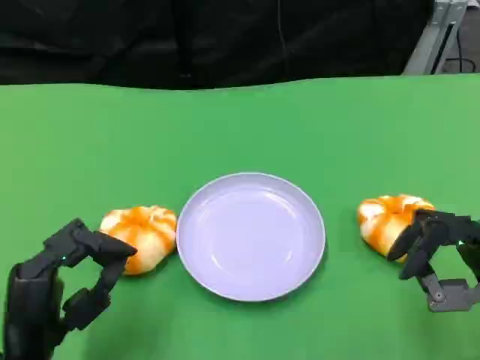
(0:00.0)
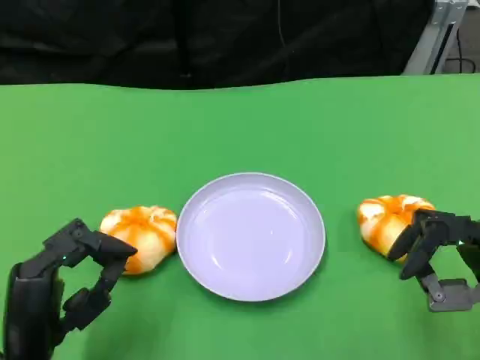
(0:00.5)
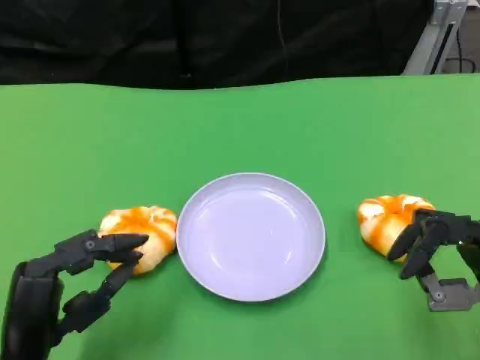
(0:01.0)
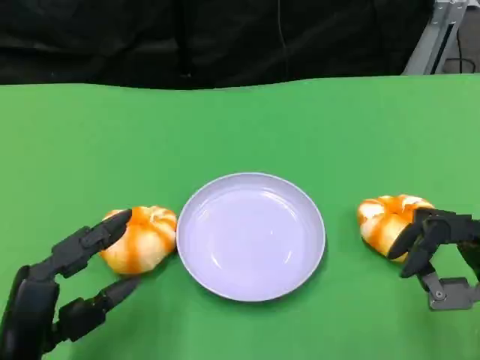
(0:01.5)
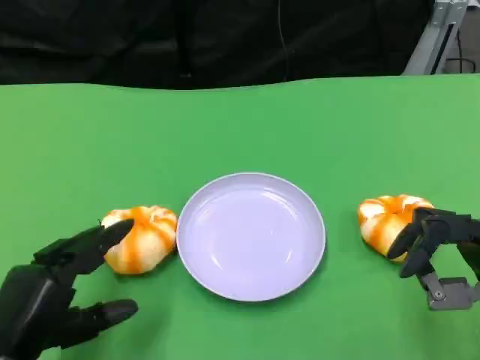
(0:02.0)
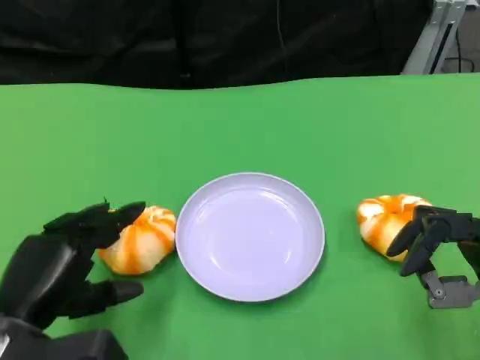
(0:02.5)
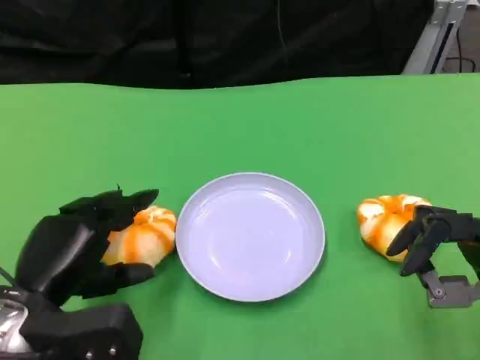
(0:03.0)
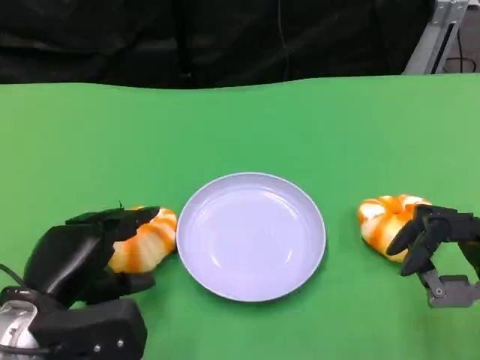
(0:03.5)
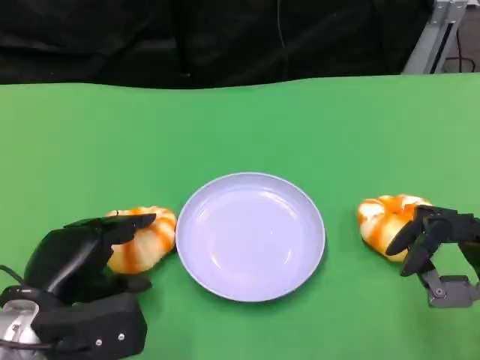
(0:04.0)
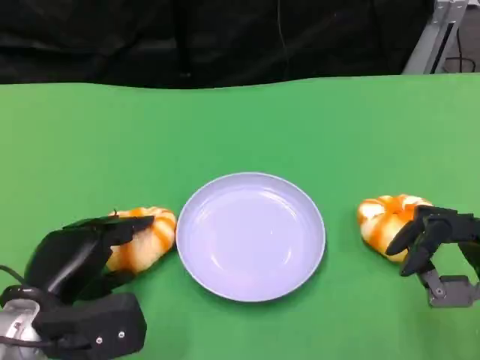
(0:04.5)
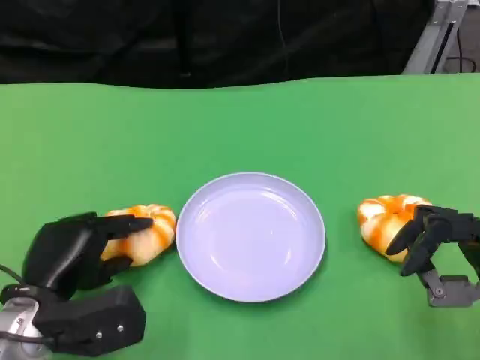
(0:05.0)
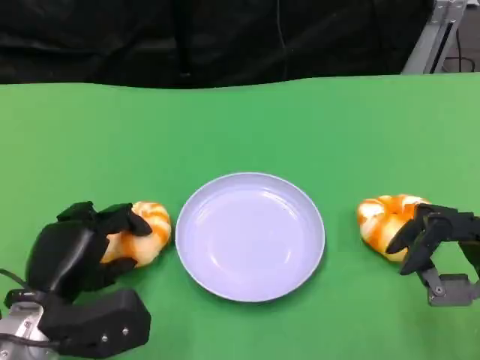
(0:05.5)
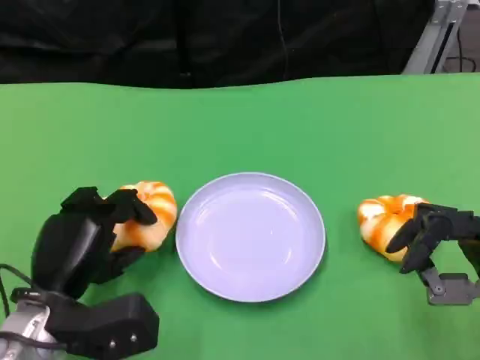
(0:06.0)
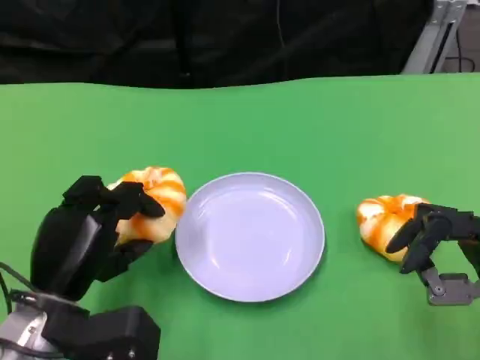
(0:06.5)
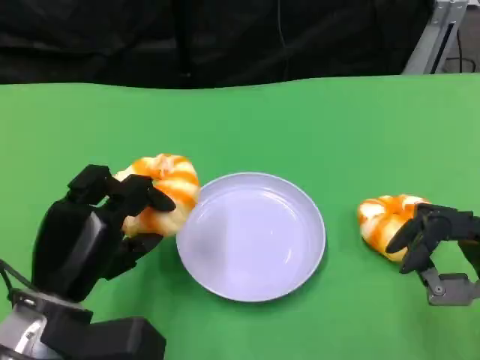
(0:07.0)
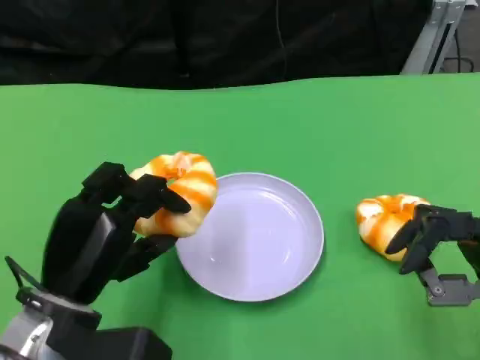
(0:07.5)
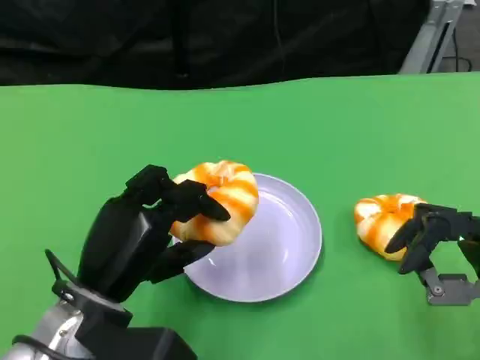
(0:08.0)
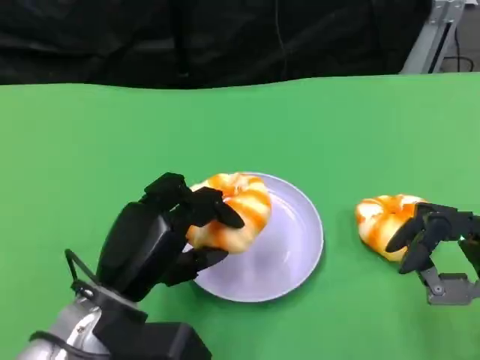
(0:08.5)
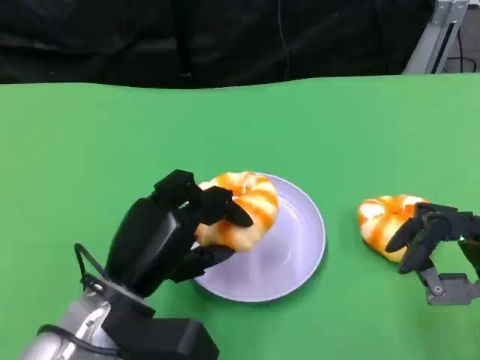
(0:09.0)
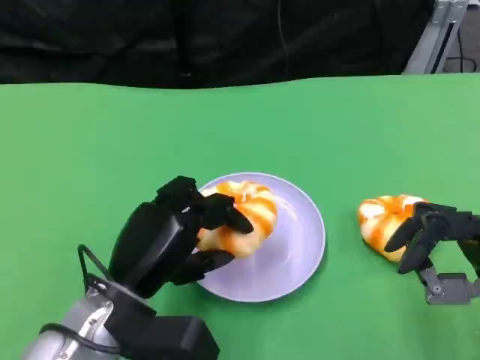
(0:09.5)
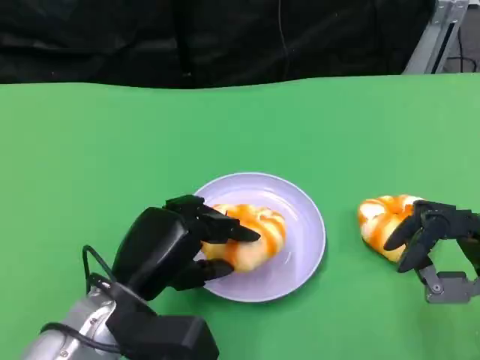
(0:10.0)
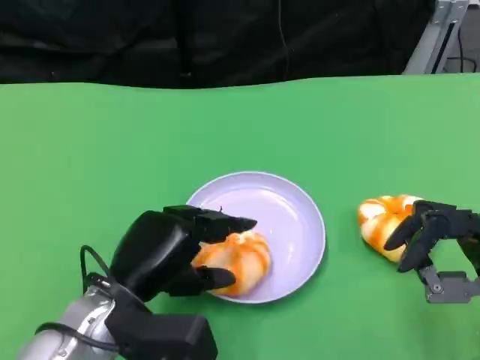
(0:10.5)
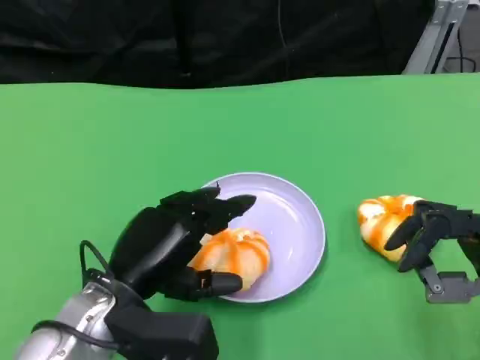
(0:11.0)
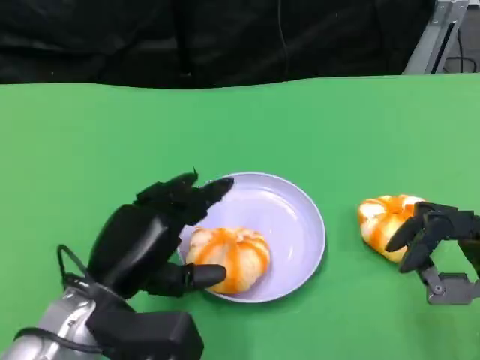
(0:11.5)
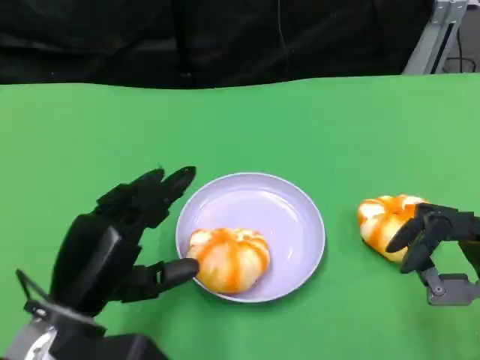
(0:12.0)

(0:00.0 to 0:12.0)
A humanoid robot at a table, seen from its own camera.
Task of the whole recording: Grasp the bread from the table and place it into the plate.
0:02.0 - 0:04.0: The left hand travels forward by approximately 5 cm.
0:04.0 - 0:06.0: There are only small adjustments of the hands.
0:06.0 - 0:08.0: The left hand moves about 5 cm.
0:08.0 - 0:10.0: The hands move only a little.
0:10.0 - 0:12.0: The left hand ends up approximately 5 cm from where it was.

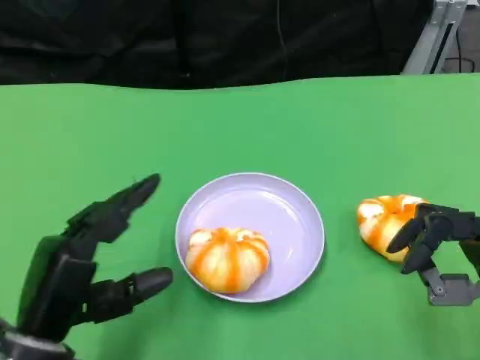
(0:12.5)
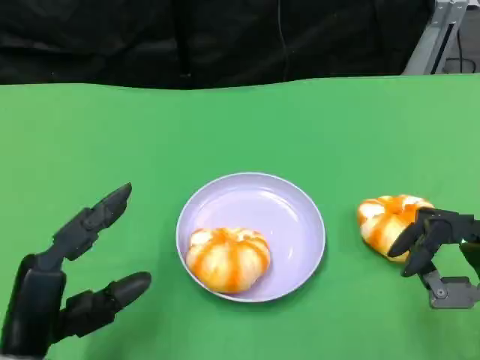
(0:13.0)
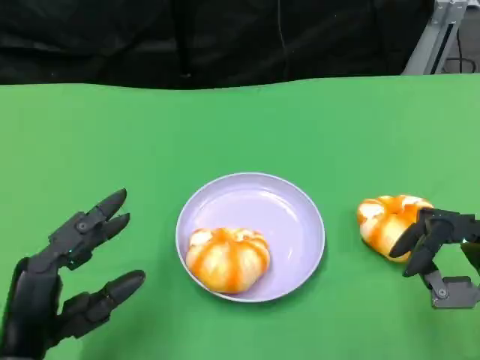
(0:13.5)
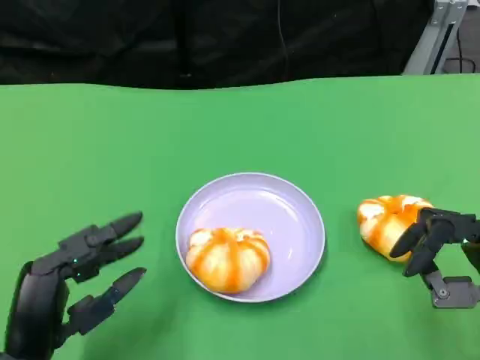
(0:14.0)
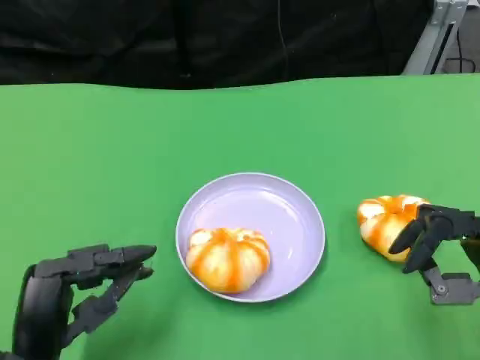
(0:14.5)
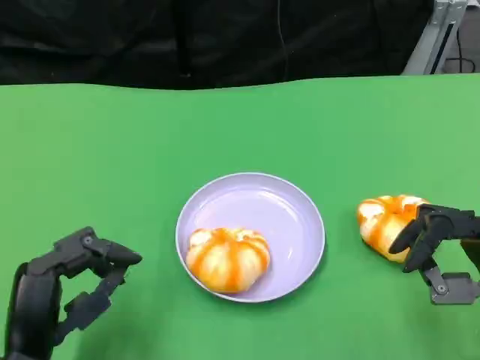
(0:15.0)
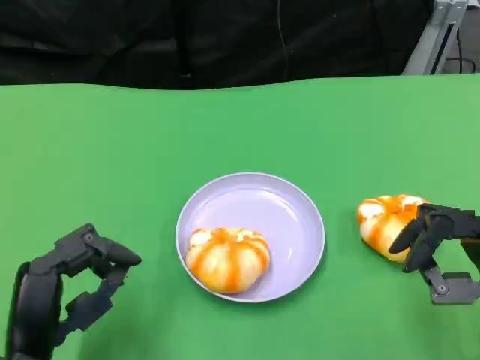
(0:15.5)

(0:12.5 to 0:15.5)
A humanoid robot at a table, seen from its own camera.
Task of the whole recording: Grasp the bread from the table and place it into the plate.
0:14.0 - 0:15.5: The hands make only small movements.

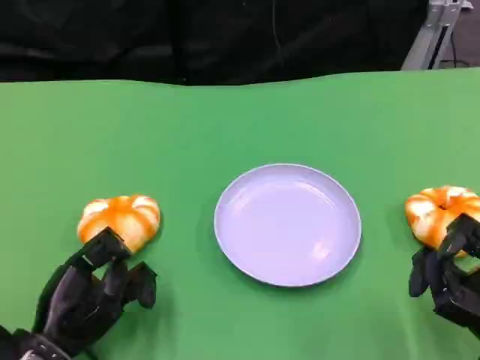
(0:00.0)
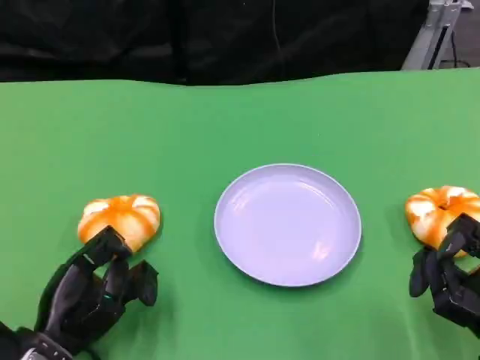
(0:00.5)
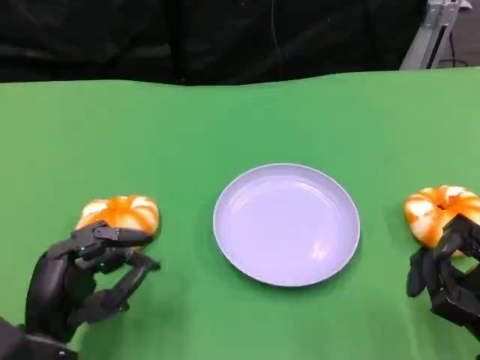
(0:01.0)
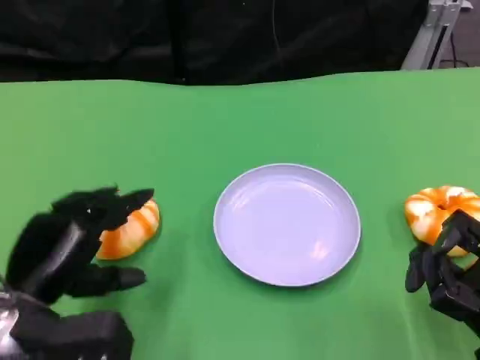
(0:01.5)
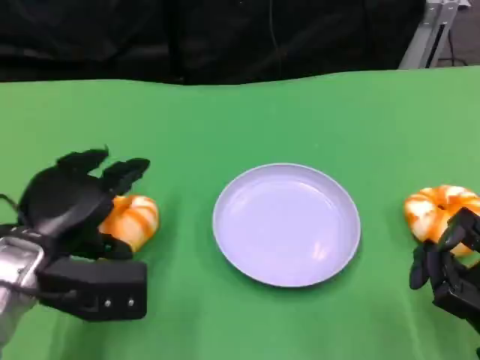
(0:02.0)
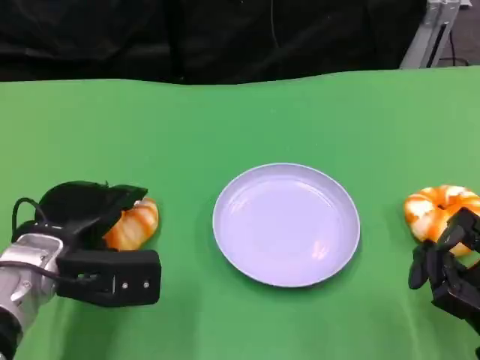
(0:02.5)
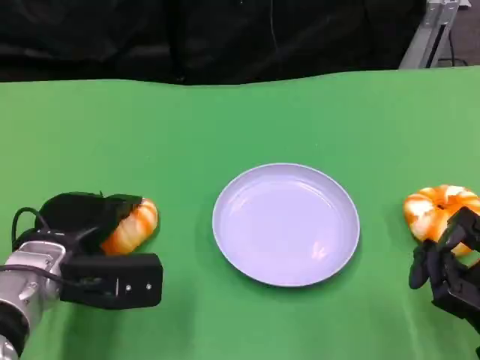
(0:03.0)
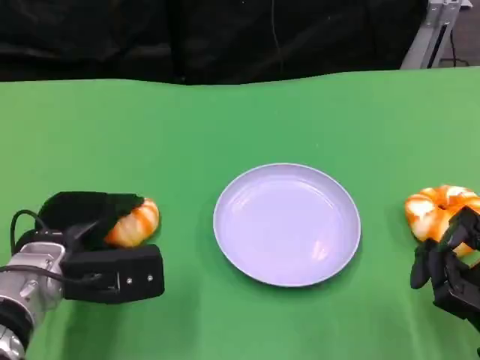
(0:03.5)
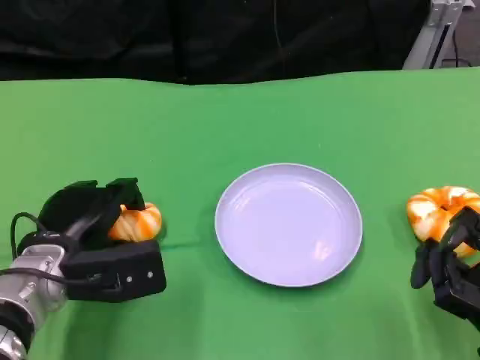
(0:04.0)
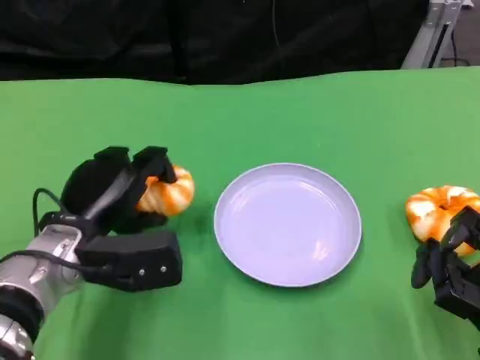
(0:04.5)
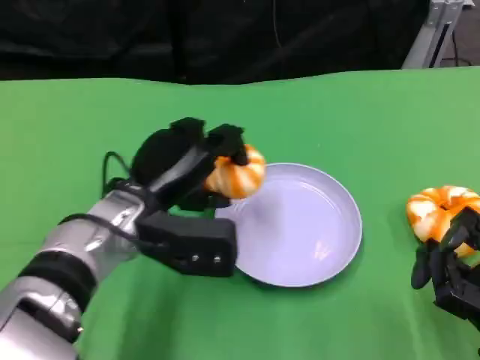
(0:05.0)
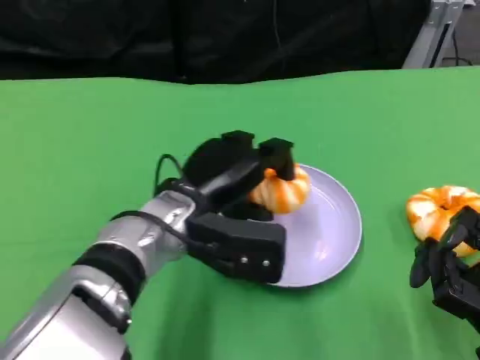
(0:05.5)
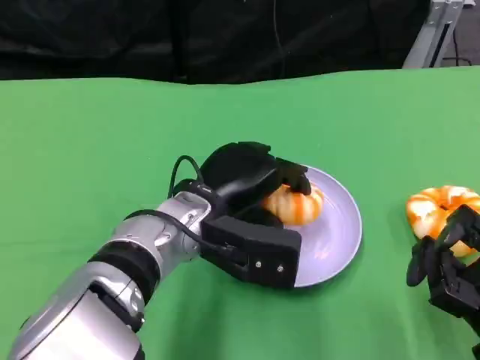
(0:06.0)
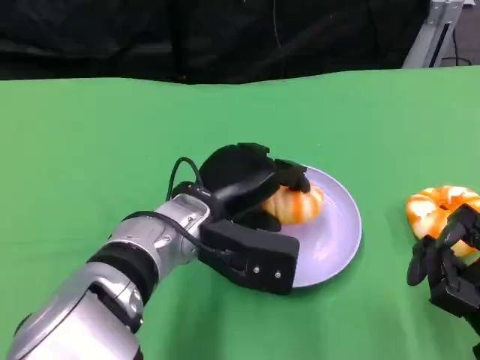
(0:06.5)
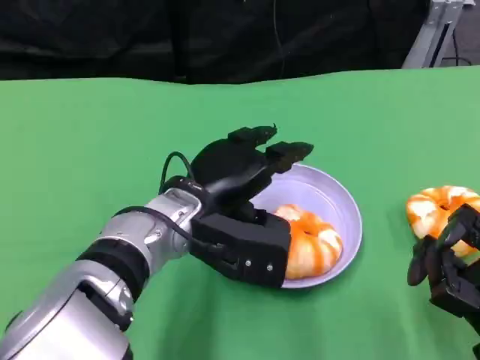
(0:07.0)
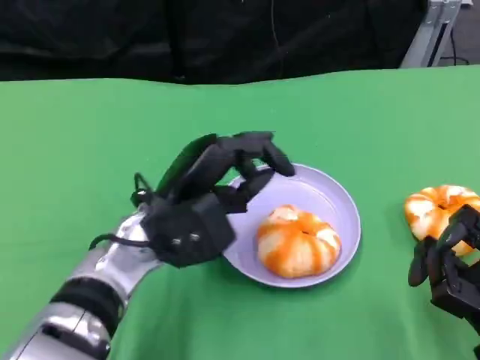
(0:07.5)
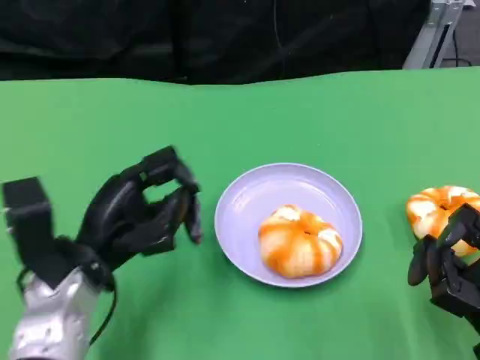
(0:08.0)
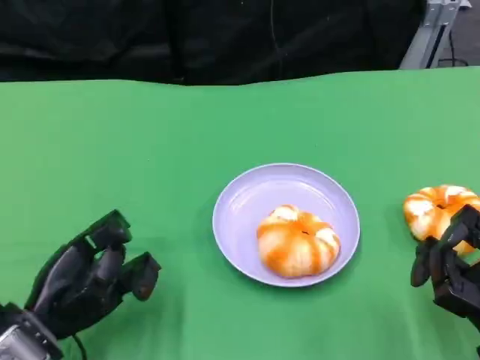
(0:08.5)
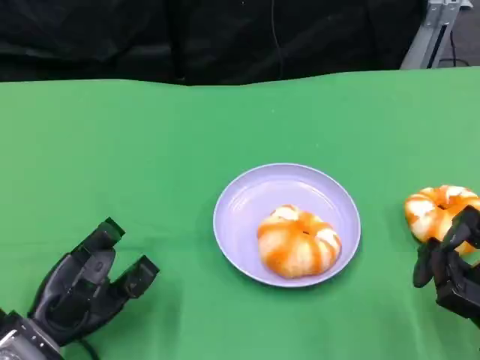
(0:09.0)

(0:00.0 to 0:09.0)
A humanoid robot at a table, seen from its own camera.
Task of the whole recording: Grasp the bread from the table and place it into the plate.
0:00.0 - 0:02.0: The left hand heads upward and forward, covering roughly 10 cm.
0:02.0 - 0:04.5: The hands make only small movements.
0:04.5 - 0:07.0: The left hand is displaced to the right by about 10 cm.
0:07.0 - 0:09.0: The left hand moves to the left, downward and backward, about 20 cm.

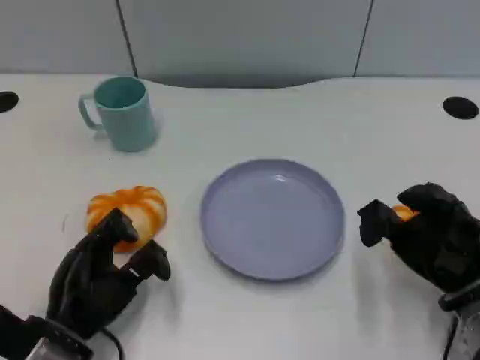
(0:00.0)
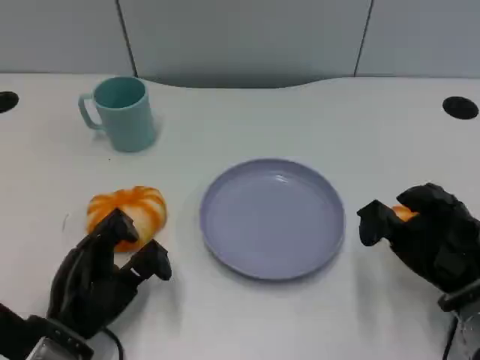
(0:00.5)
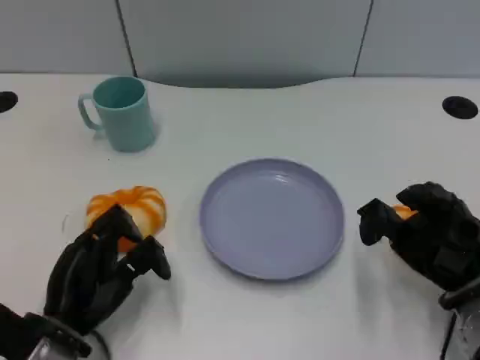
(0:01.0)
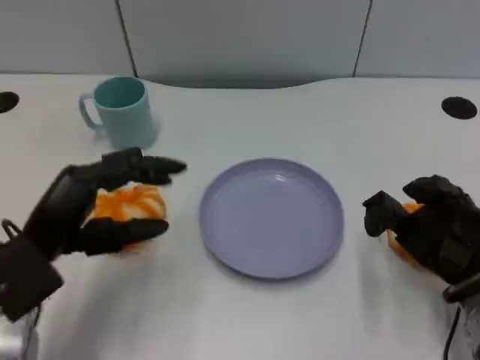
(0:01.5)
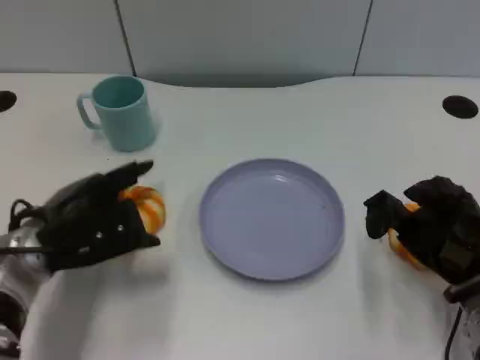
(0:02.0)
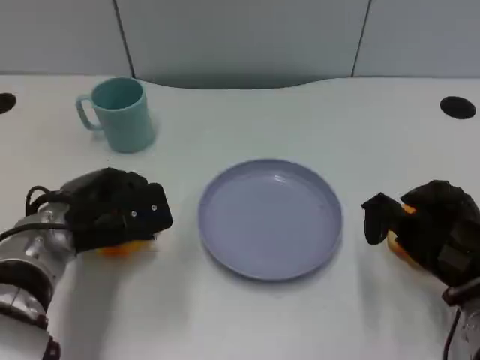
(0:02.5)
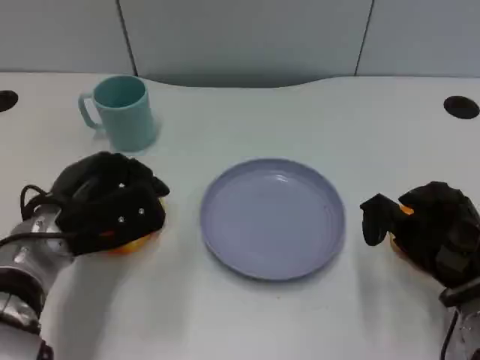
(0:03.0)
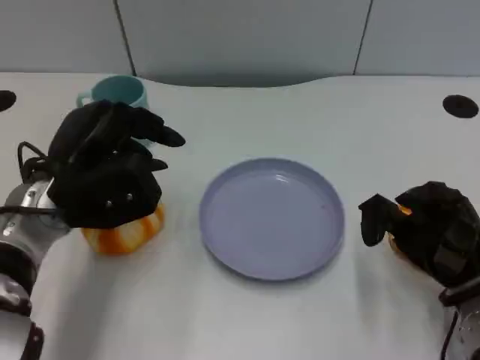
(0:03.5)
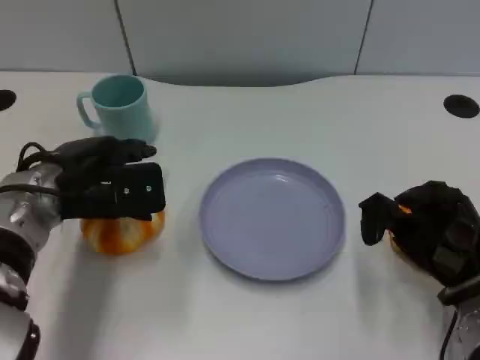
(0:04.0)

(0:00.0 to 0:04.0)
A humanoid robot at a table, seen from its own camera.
Task of the whole recording: Grasp the bread from the table and place it into the plate.
0:00.0 - 0:02.0: The left hand travels forward and upward by some 10 cm.
0:02.0 - 0:04.0: The left hand travels upward by roughly 5 cm.
